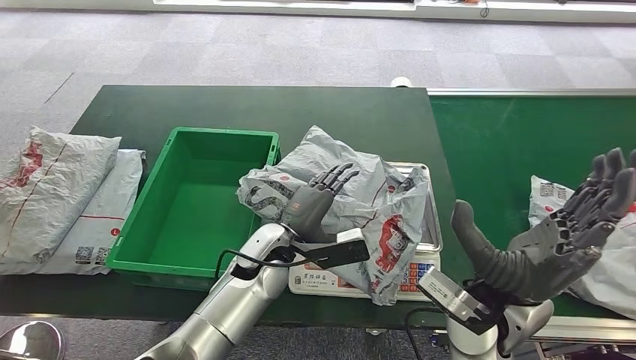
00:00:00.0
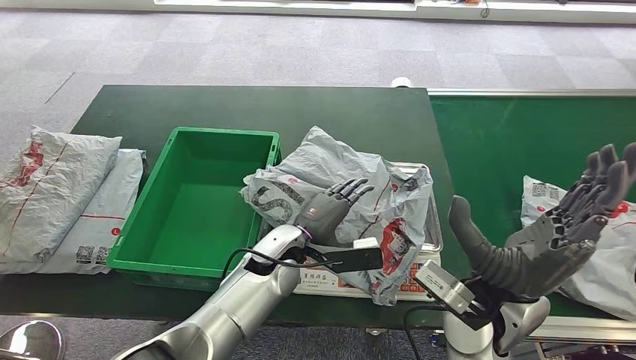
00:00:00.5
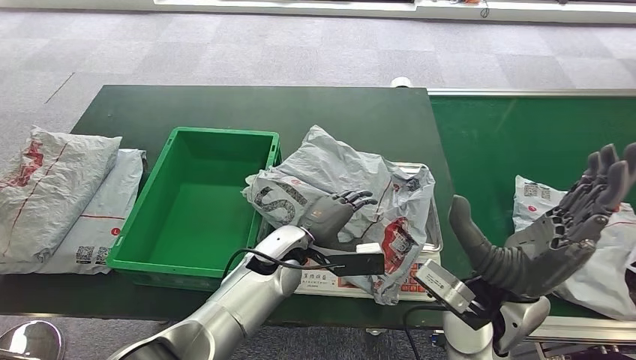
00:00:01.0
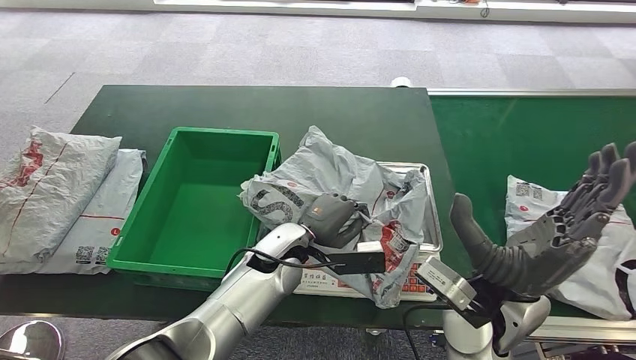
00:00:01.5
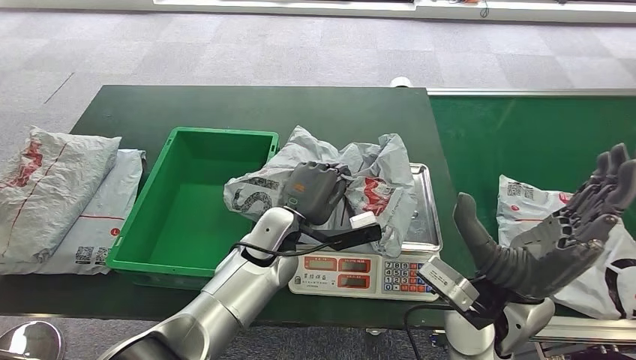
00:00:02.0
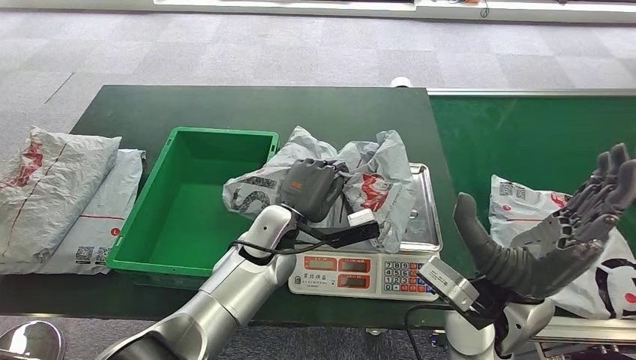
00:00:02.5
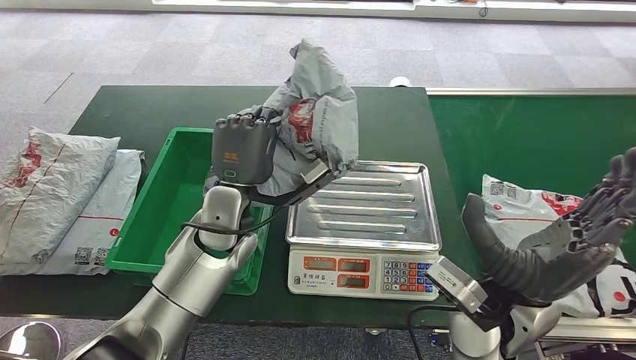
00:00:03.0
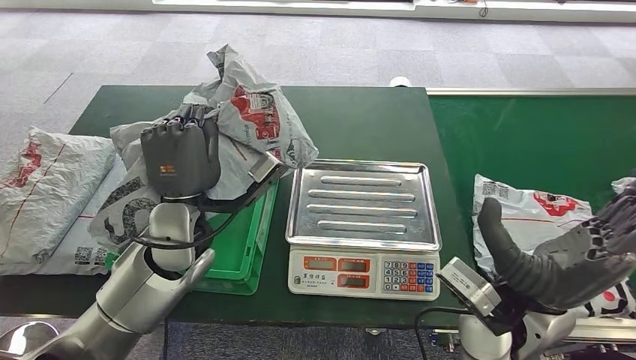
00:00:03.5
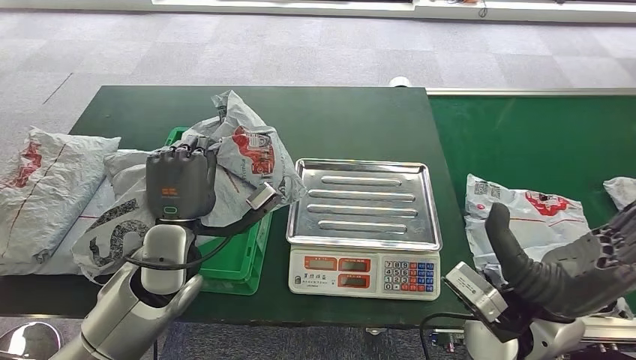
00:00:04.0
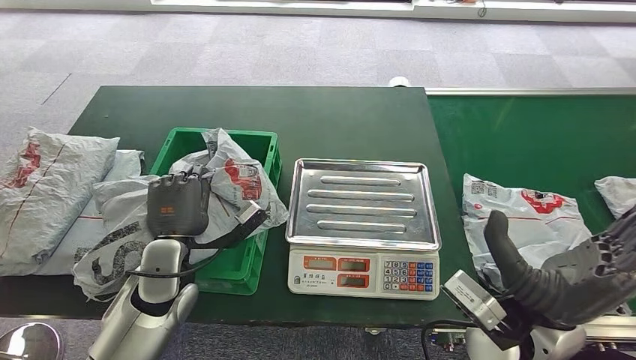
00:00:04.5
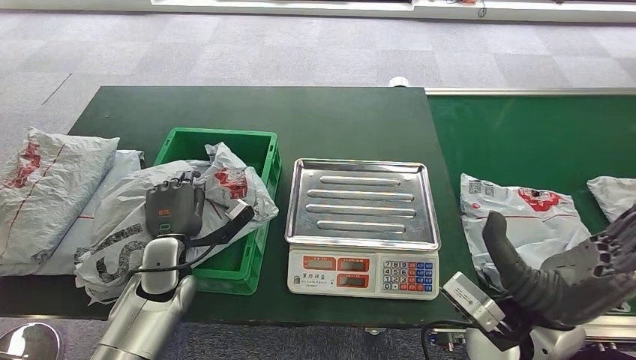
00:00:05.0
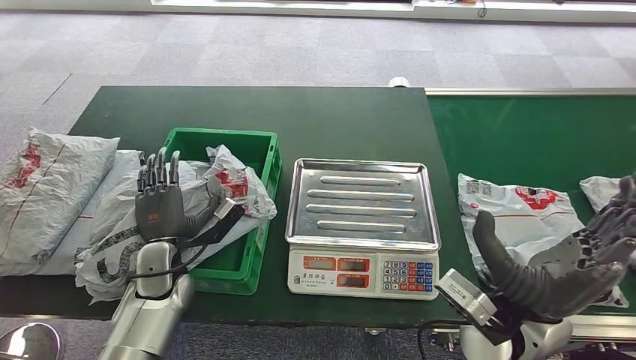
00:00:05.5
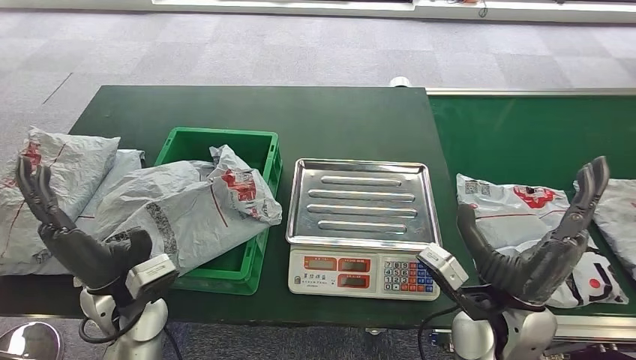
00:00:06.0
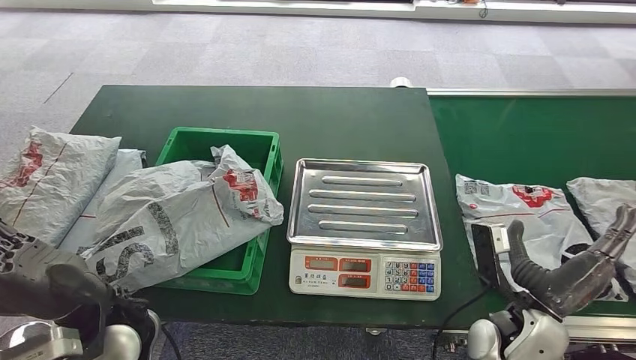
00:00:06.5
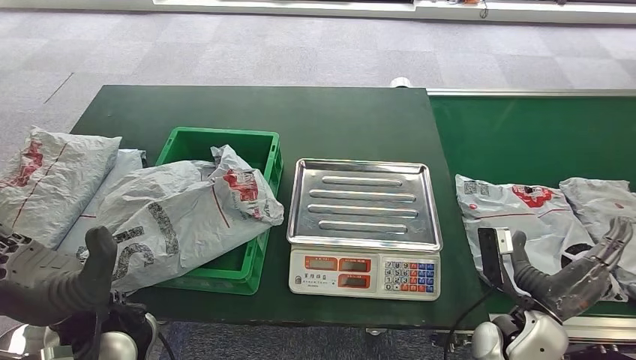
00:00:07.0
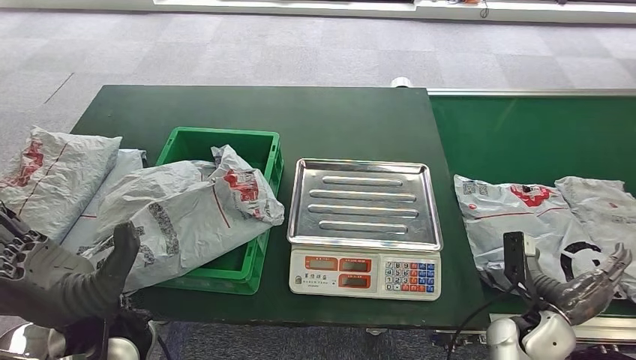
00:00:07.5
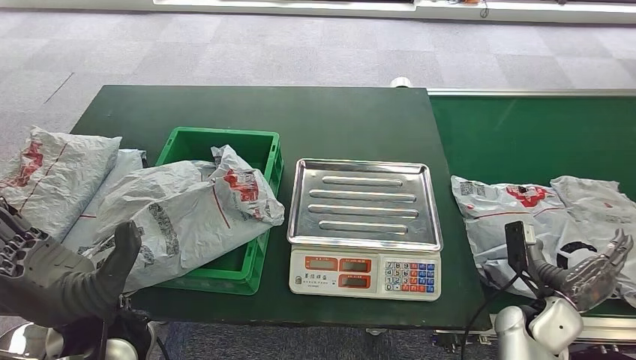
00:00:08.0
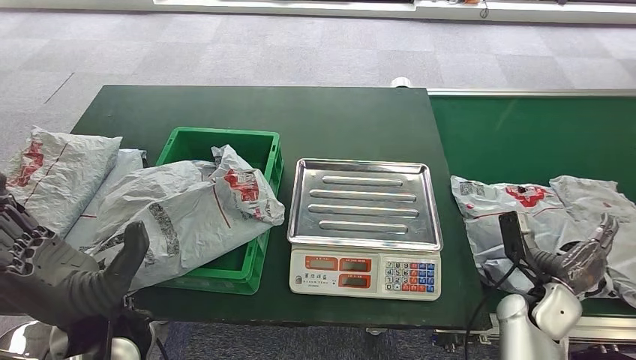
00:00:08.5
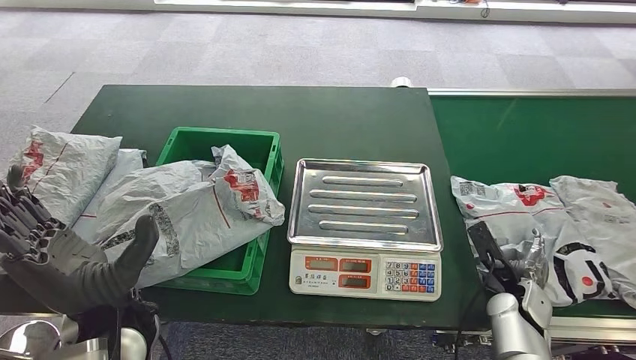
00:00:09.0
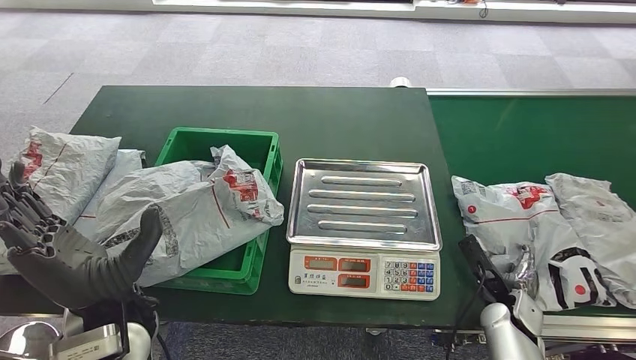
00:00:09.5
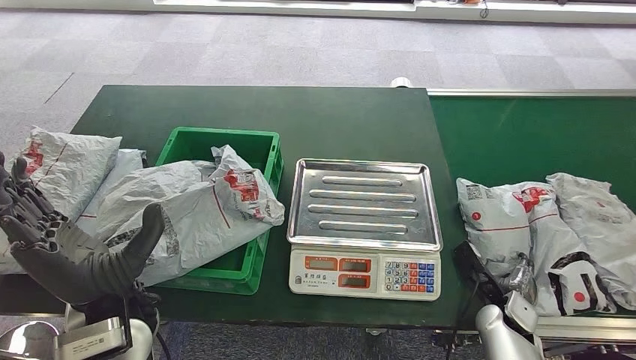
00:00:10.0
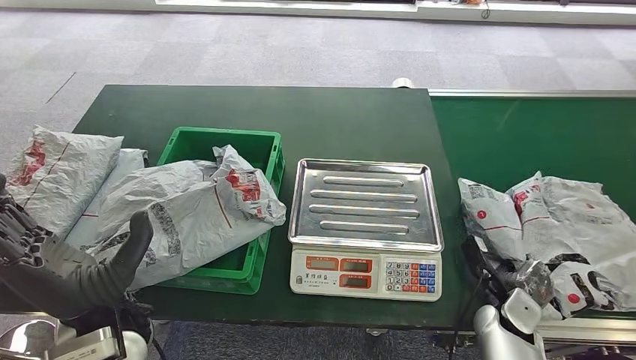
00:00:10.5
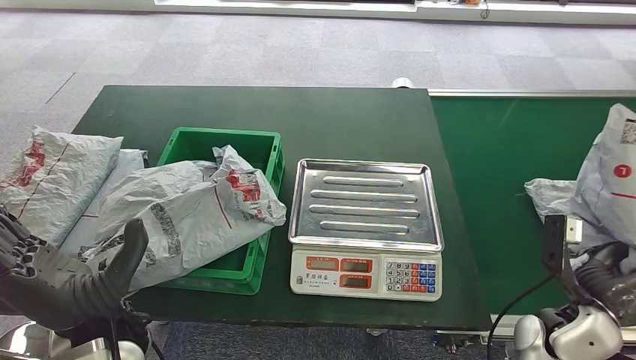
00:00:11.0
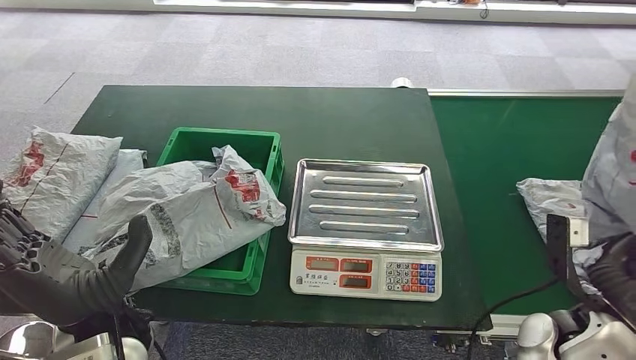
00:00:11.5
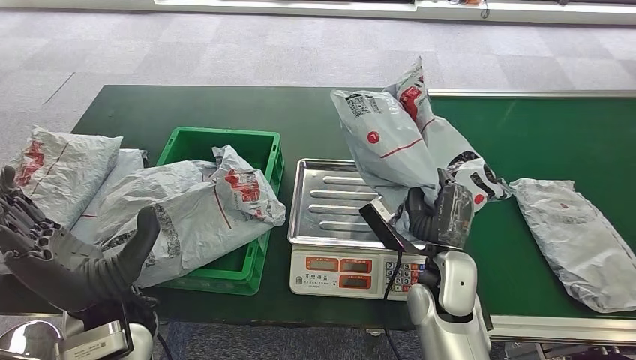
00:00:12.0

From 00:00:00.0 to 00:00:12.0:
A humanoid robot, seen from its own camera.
Step, from 00:00:00.0 to 00:00:03.0: Pick up the parcel from the inbound machine.
Step, from 00:00:03.5 to 00:00:06.5: Put the parcel inside the courier box.
Step, from 00:00:09.0 to 00:00:11.0: Pick up the parcel from the conveyor belt.
From 00:00:06.0 to 00:00:08.0: The left hand travels upward by roughly 5 cm. The right hand goes approximately 20 cm to the right and downward.
From 00:00:08.0 to 00:00:10.0: The right hand goes roughly 5 cm downward.

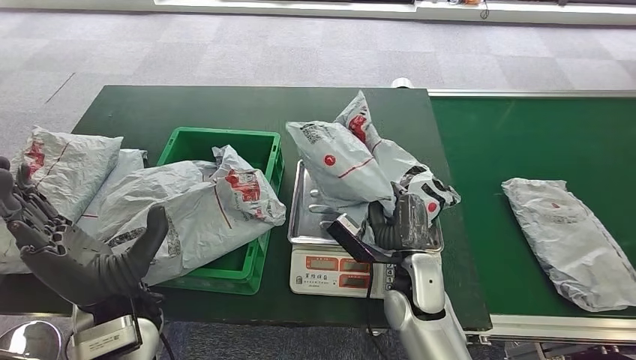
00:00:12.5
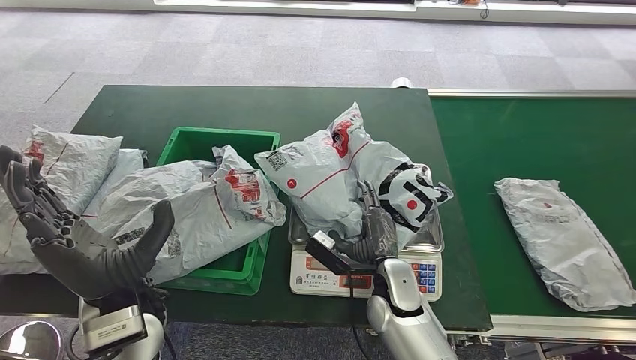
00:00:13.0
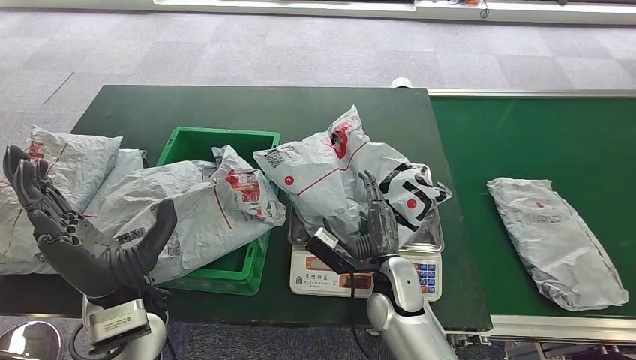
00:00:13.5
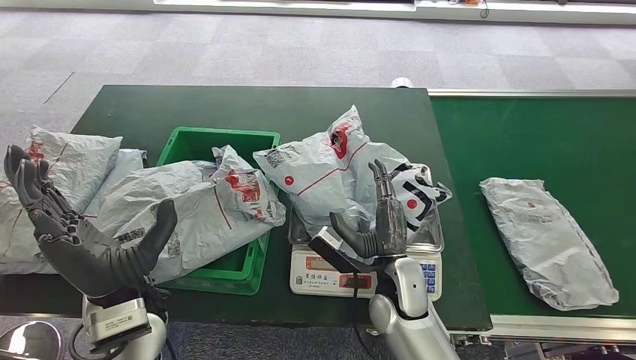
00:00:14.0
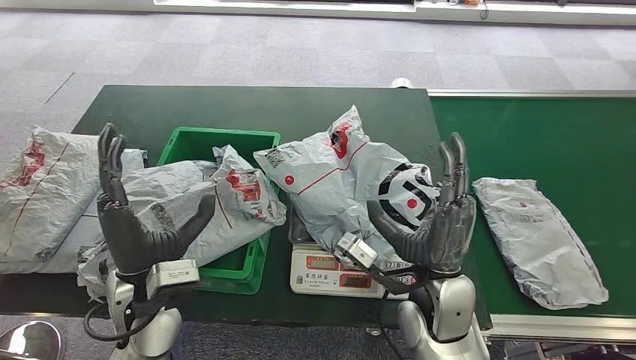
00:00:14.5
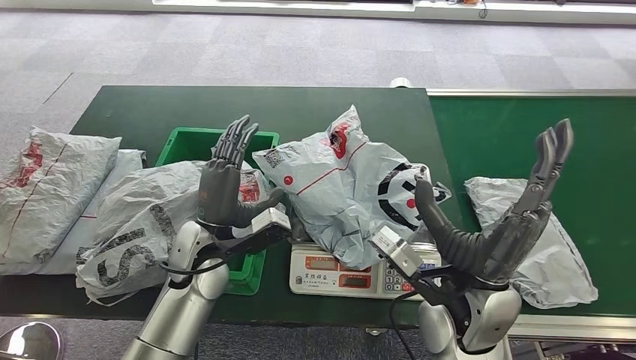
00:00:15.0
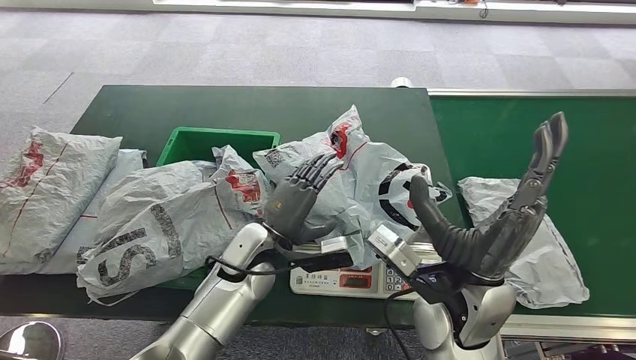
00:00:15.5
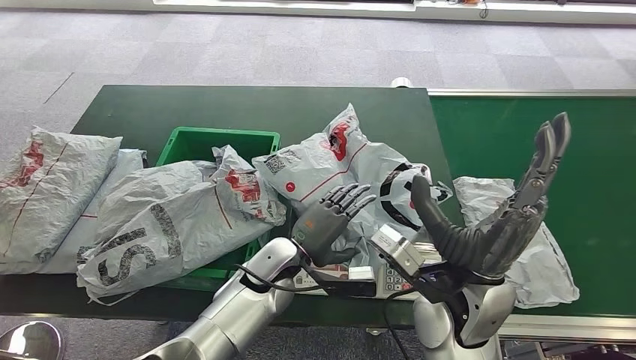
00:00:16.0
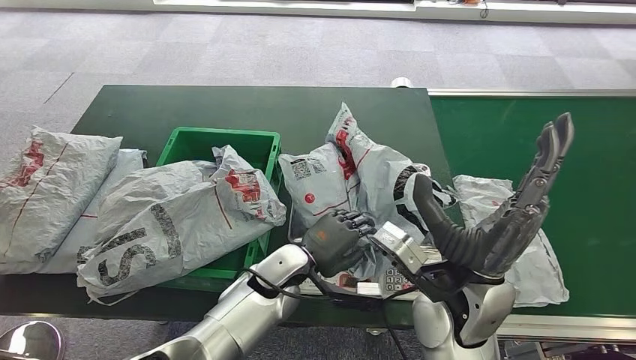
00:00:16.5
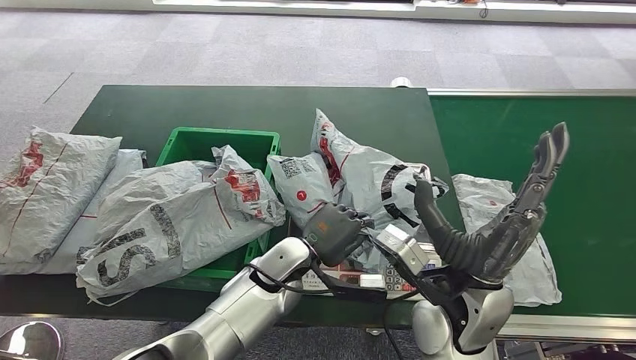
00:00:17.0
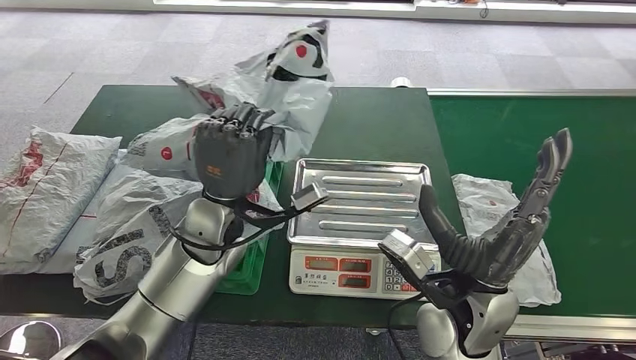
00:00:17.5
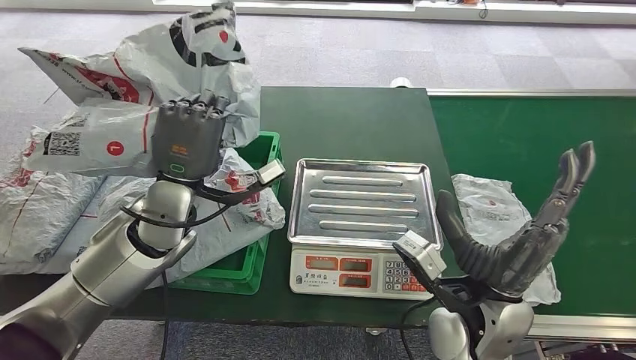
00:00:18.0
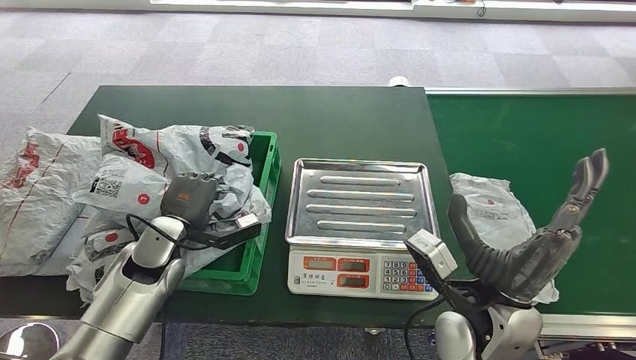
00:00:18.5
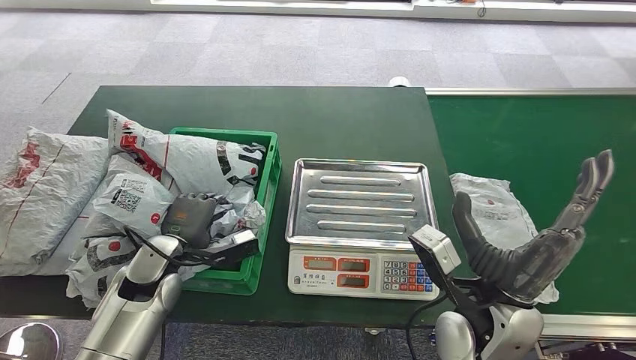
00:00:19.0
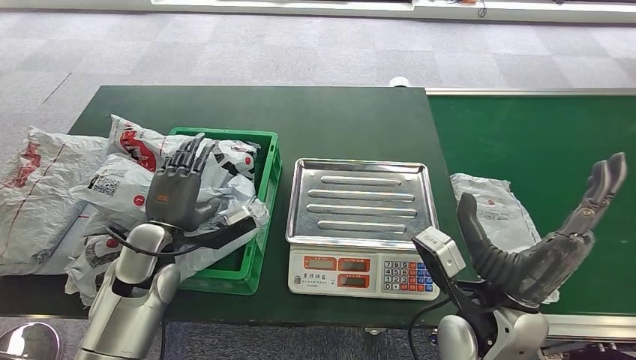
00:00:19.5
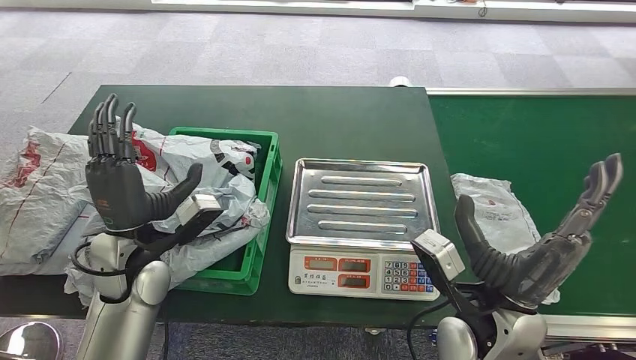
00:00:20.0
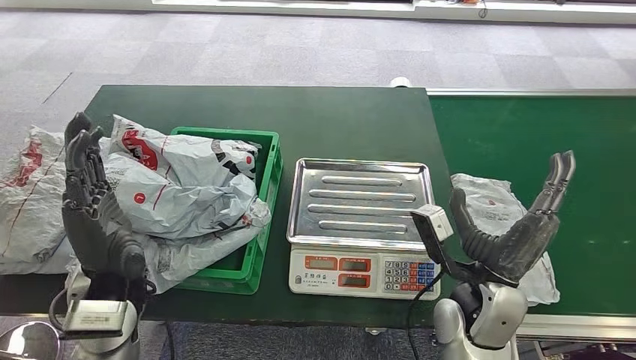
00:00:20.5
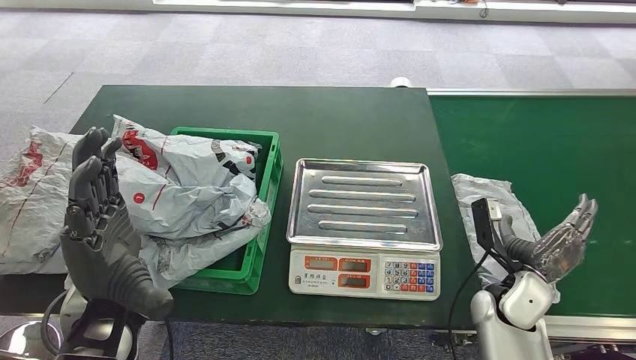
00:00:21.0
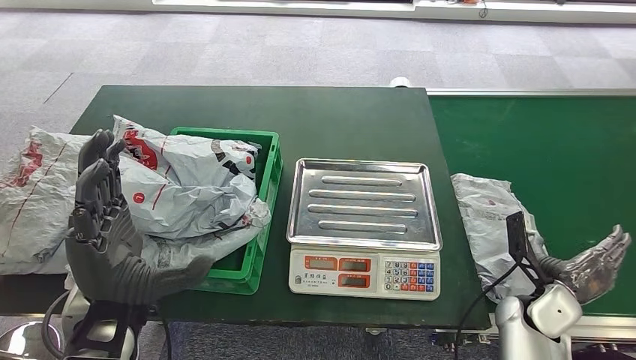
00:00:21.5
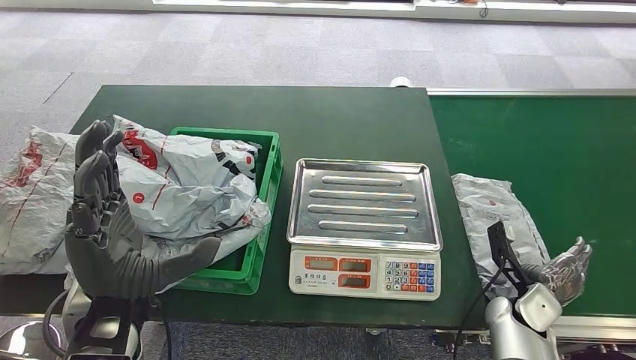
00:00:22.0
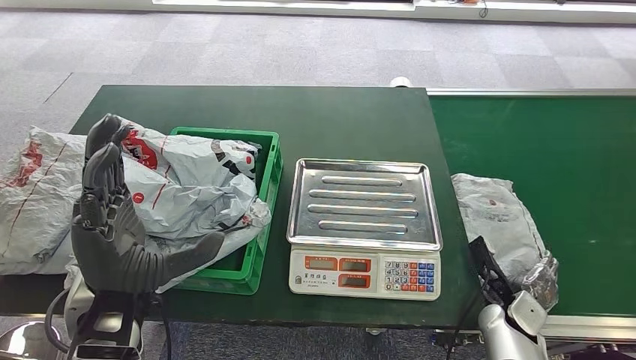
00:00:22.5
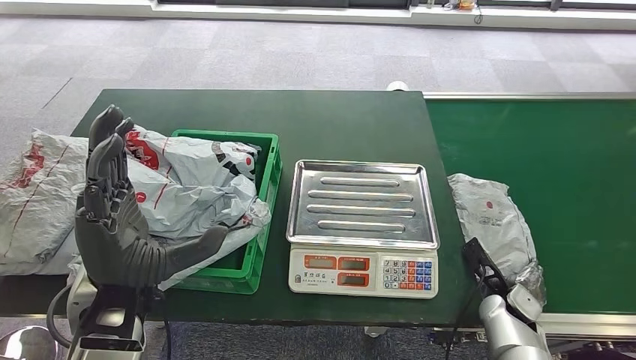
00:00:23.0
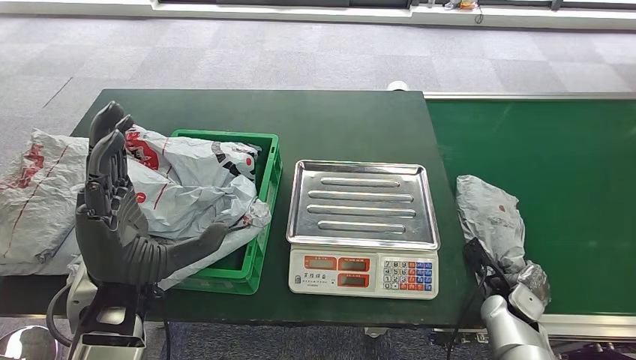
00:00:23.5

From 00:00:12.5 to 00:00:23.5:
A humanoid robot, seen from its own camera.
Step, from 00:00:12.5 to 00:00:14.0: Place the parcel onto the inbound machine.
Step, from 00:00:16.0 to 00:00:17.5: Pick up the parcel from the inbound machine.
Step, from 00:00:18.0 to 00:00:20.5: Place the parcel into the delivery box.
